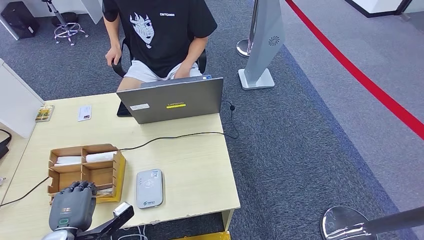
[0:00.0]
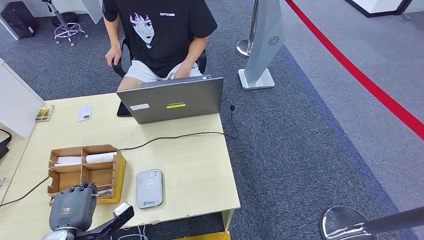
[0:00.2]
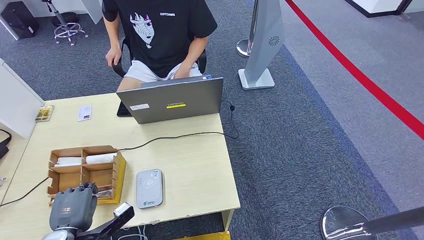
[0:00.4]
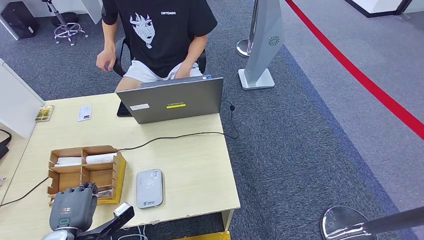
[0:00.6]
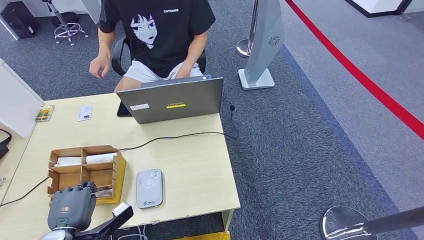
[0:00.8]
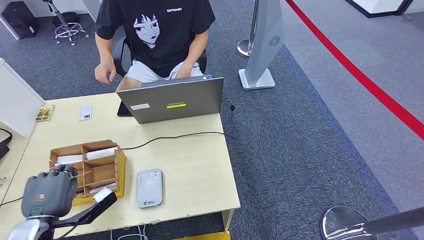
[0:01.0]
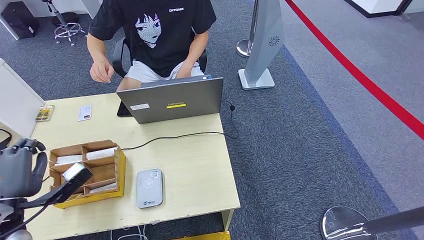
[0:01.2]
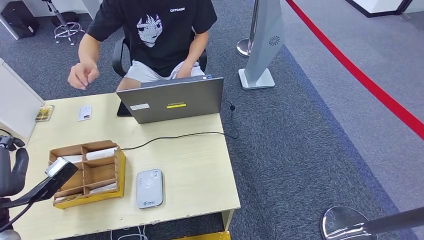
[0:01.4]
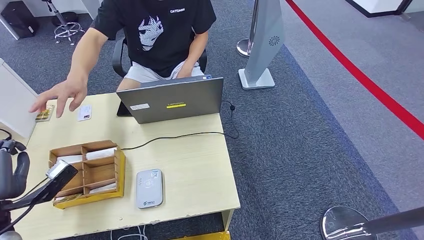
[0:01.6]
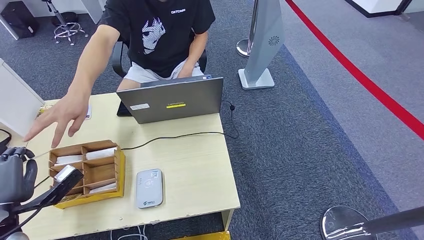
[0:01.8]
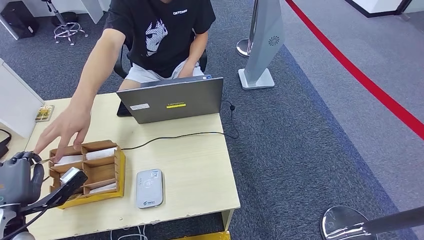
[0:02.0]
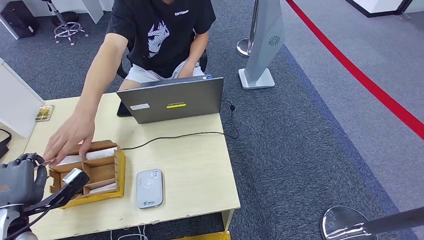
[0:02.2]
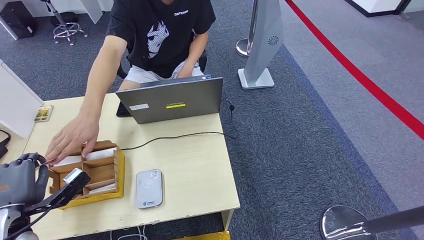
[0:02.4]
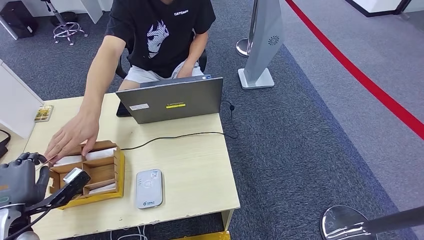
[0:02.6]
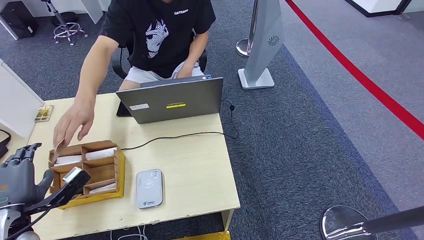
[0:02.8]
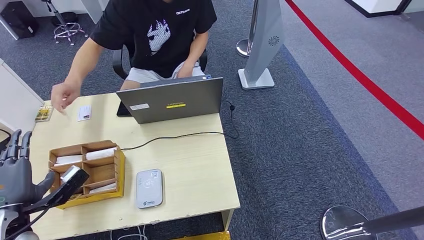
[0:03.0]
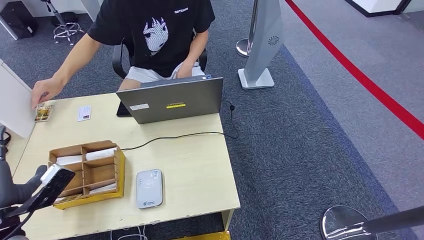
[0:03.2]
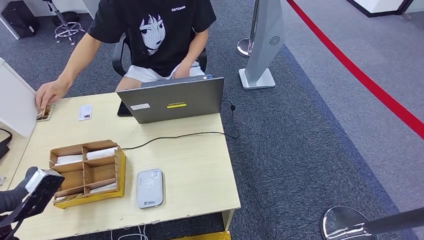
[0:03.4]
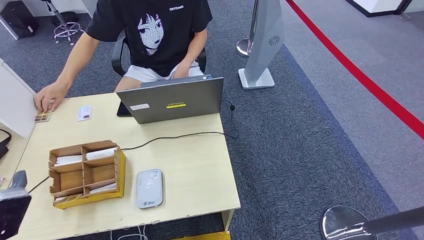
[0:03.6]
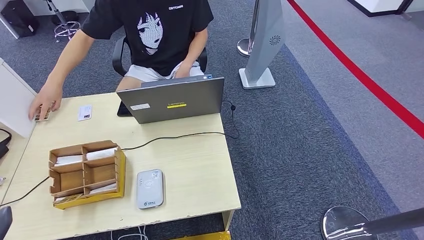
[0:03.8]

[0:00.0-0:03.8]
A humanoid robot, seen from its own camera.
Step, 0:00.6 to 0:03.8: Hand the room key to the person.
0:00.0 to 0:01.2: The left hand travels upward and to the left by some 10 cm.
0:01.2 to 0:02.6: The hands move only a little.
0:02.6 to 0:03.8: The left hand shifts roughly 10 cm backward.
